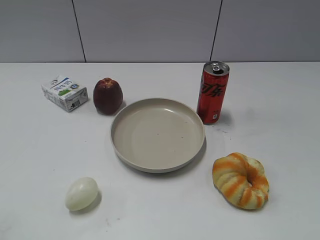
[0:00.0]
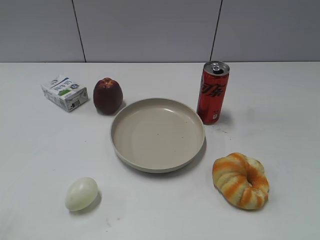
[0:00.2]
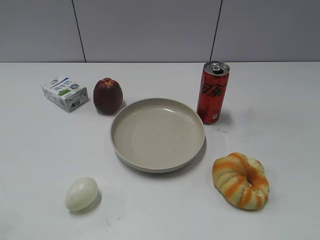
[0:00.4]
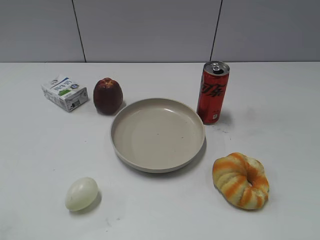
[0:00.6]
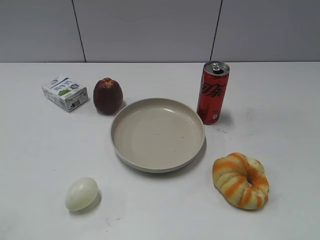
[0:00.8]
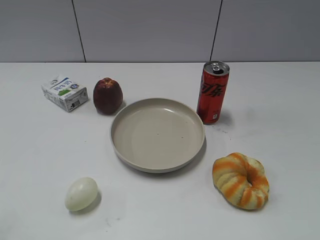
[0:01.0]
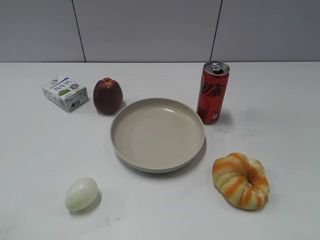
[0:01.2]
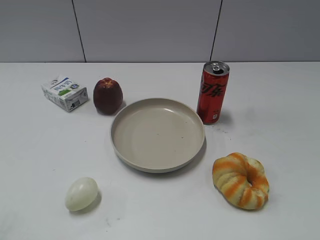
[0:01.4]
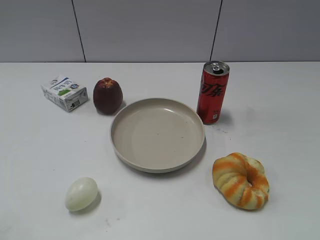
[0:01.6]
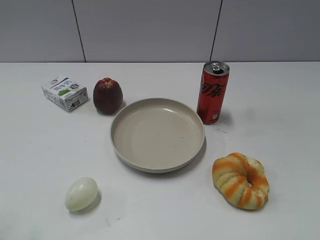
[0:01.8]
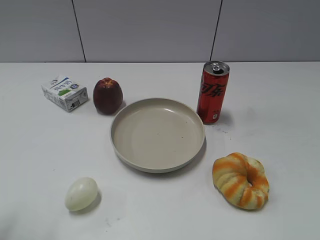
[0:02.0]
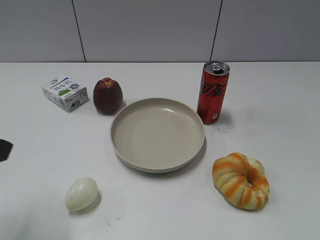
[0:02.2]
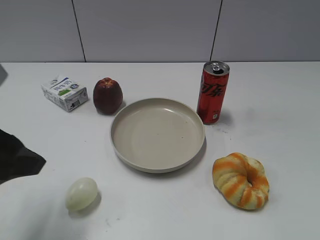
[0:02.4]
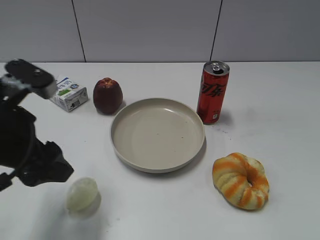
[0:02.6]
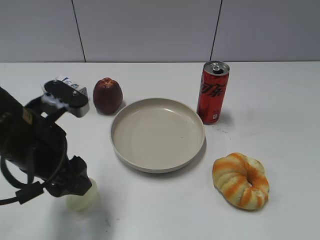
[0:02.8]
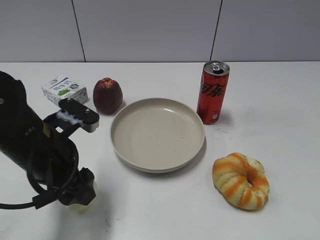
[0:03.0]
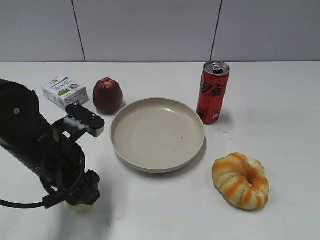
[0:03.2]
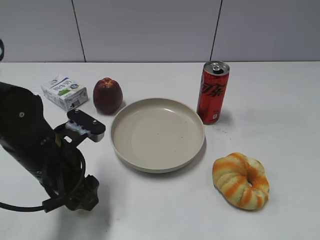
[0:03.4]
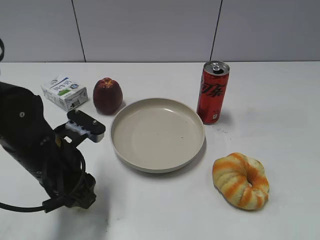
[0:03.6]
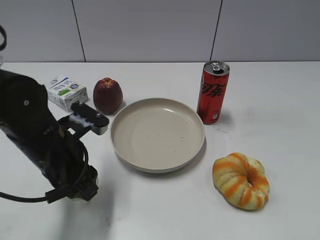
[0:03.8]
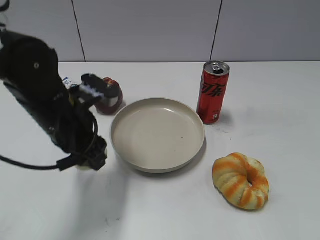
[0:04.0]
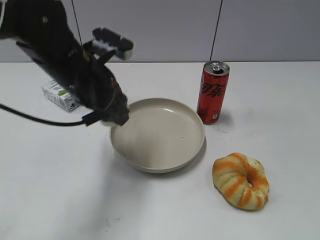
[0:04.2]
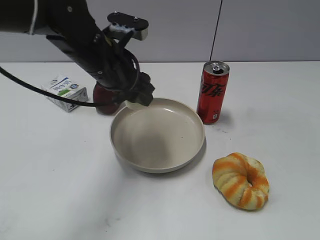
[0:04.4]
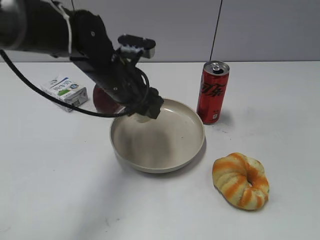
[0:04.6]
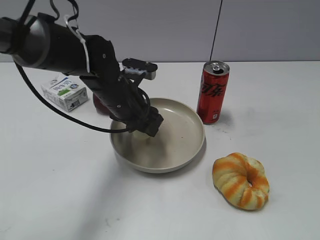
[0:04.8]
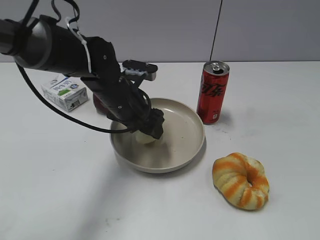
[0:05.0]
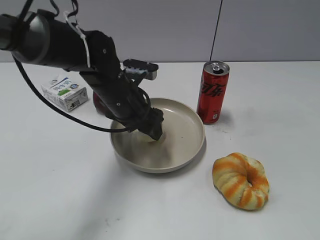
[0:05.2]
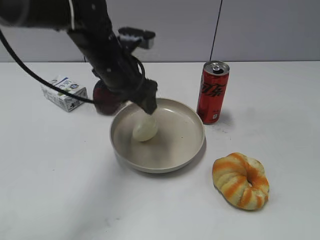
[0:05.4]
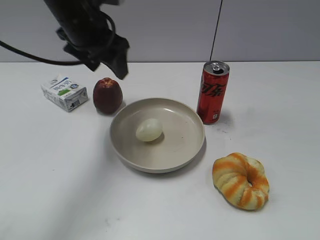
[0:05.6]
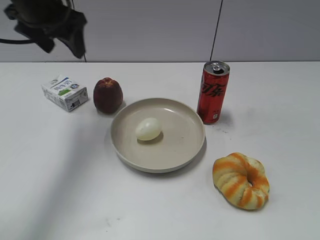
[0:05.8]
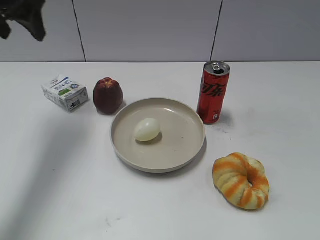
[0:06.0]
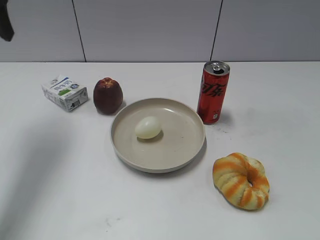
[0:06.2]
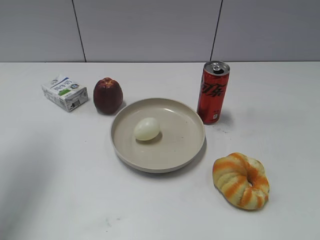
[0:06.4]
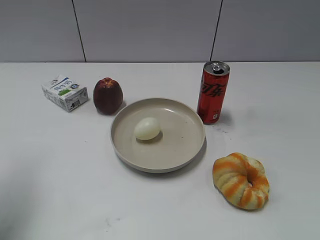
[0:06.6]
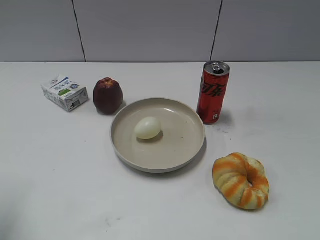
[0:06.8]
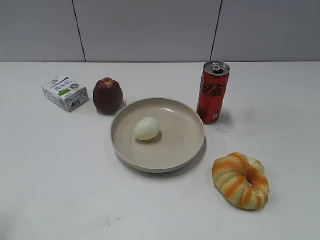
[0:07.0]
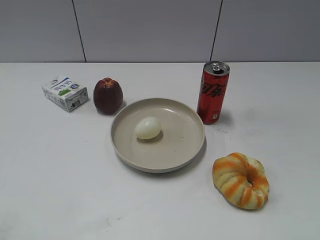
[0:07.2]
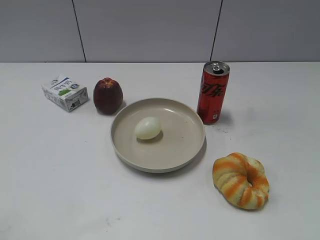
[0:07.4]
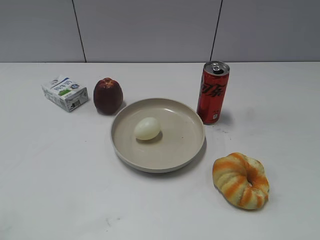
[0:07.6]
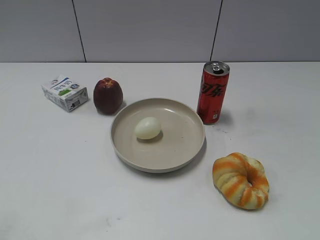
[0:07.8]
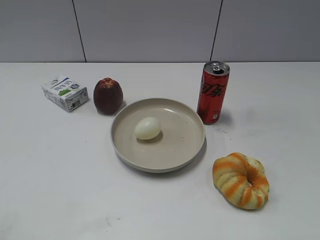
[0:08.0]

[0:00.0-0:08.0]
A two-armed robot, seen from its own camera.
0:01.6 to 0:03.2: The left gripper travels forward, downward and to the right by some 30 cm.
0:03.2 to 0:04.8: The left gripper travels forward and to the right by approximately 15 cm, and closes its fingers.
0:04.8 to 0:06.4: The left gripper heads to the left and upward, covering roughly 30 cm, and opens its fingers.
0:06.4 to 0:08.0: The left gripper is displaced backward by approximately 30 cm.
